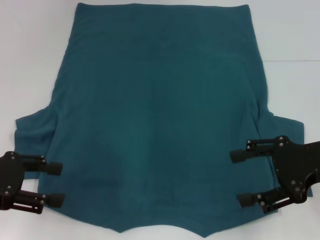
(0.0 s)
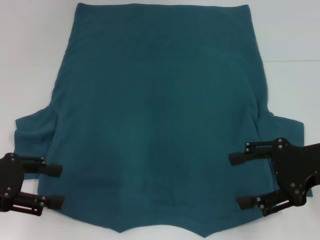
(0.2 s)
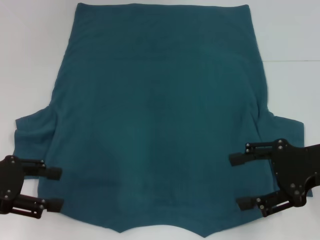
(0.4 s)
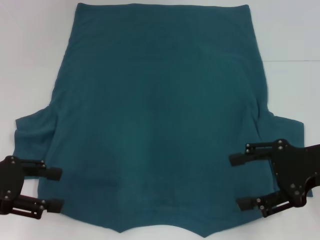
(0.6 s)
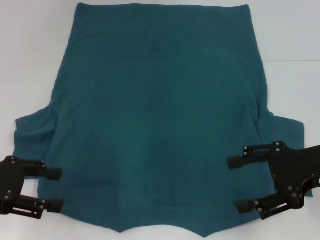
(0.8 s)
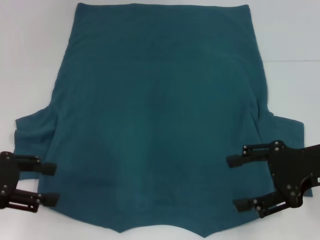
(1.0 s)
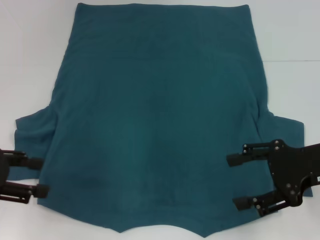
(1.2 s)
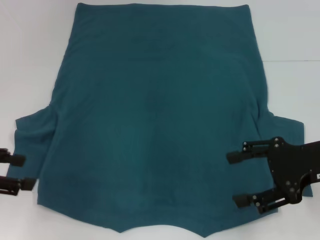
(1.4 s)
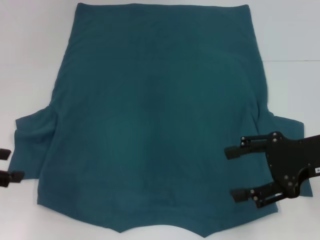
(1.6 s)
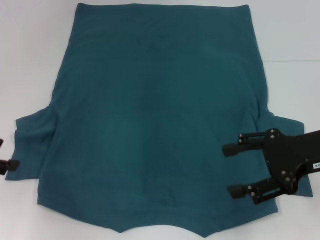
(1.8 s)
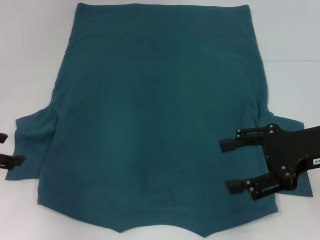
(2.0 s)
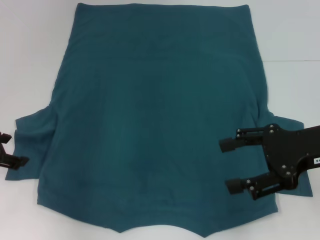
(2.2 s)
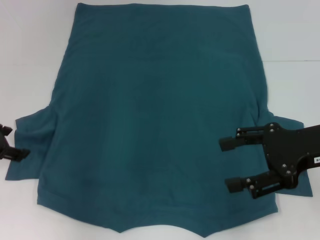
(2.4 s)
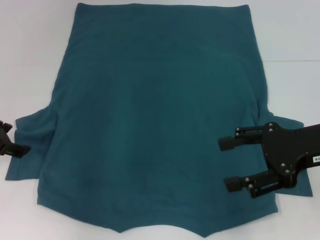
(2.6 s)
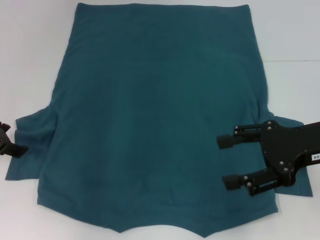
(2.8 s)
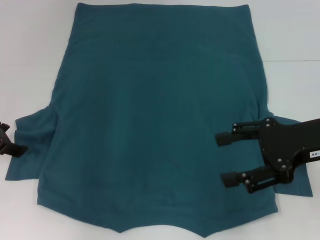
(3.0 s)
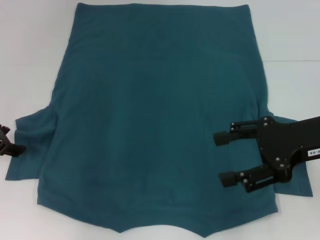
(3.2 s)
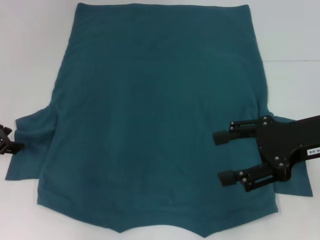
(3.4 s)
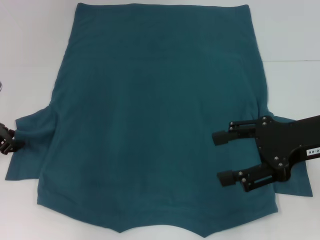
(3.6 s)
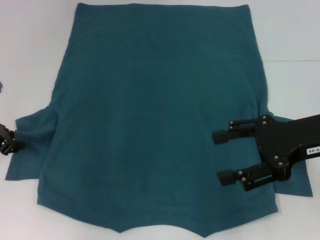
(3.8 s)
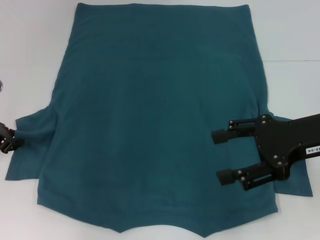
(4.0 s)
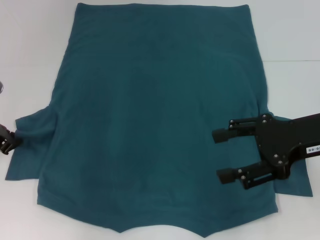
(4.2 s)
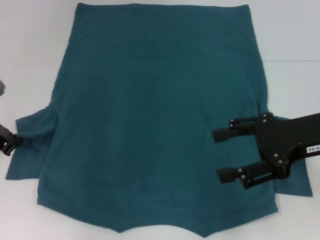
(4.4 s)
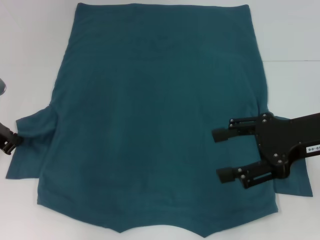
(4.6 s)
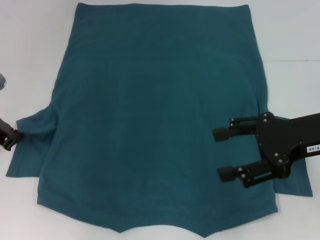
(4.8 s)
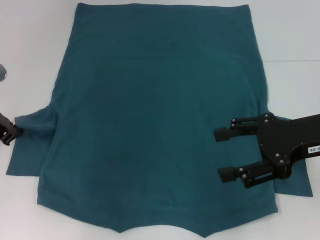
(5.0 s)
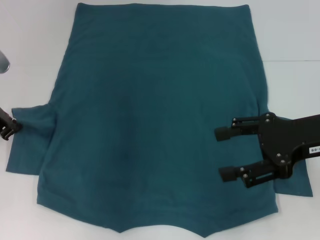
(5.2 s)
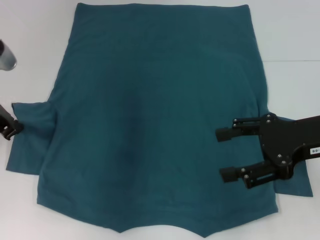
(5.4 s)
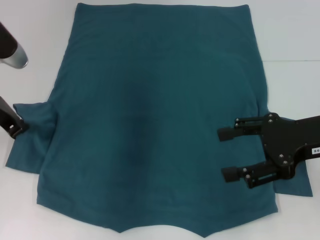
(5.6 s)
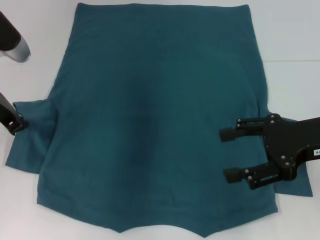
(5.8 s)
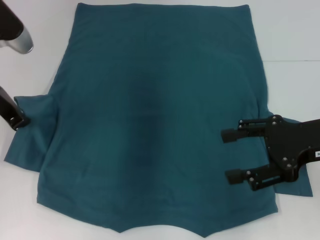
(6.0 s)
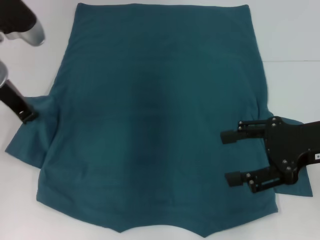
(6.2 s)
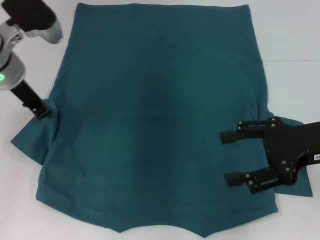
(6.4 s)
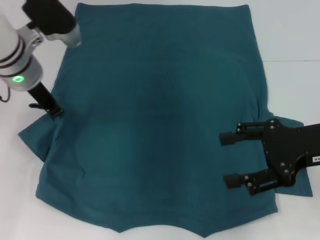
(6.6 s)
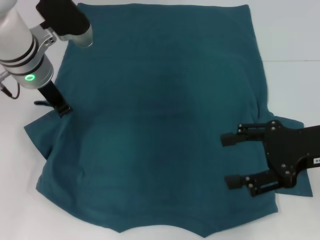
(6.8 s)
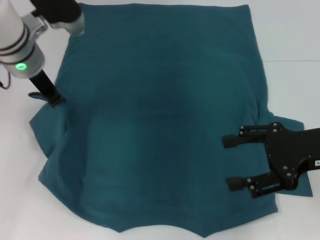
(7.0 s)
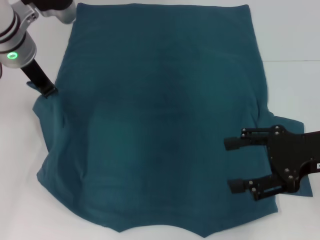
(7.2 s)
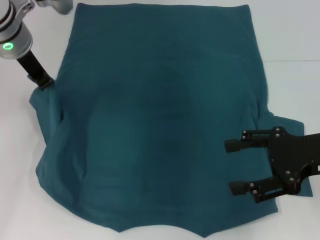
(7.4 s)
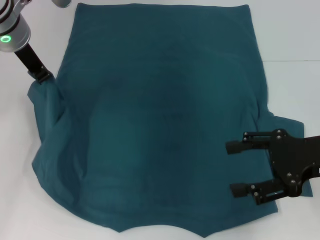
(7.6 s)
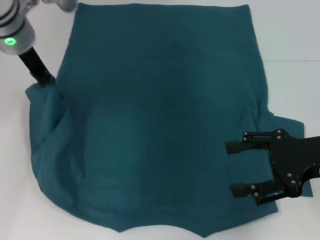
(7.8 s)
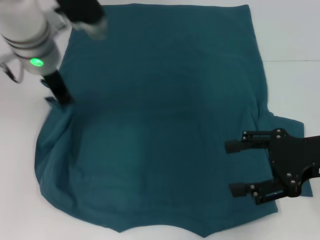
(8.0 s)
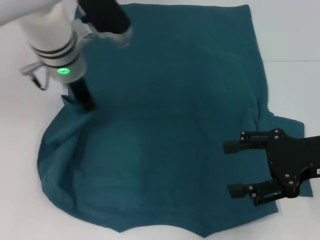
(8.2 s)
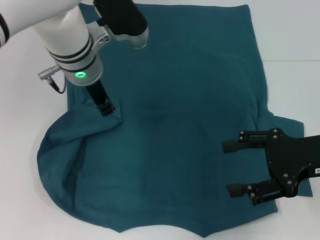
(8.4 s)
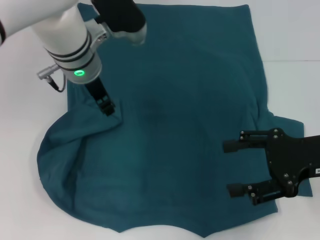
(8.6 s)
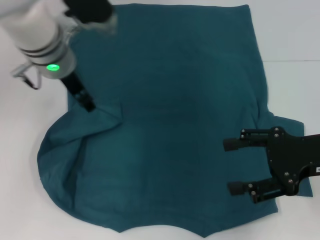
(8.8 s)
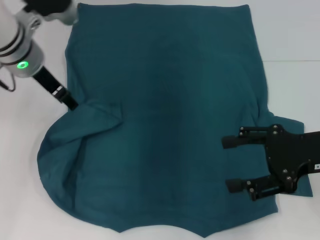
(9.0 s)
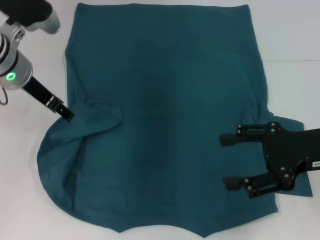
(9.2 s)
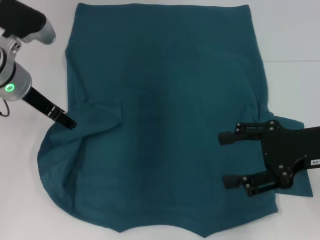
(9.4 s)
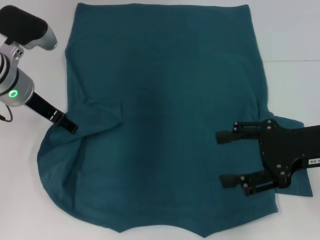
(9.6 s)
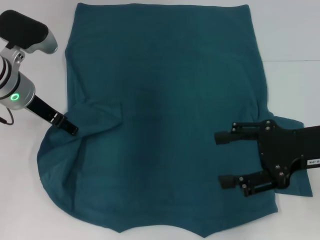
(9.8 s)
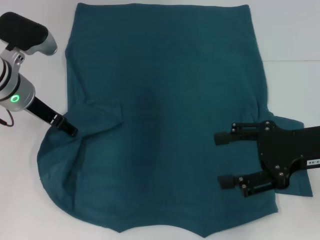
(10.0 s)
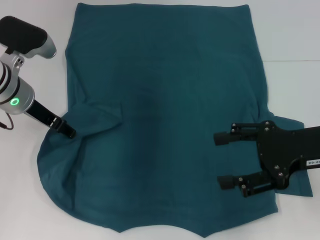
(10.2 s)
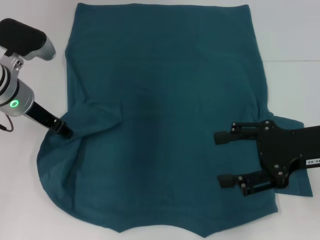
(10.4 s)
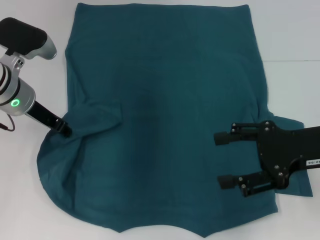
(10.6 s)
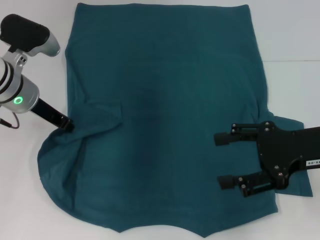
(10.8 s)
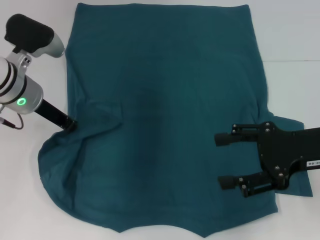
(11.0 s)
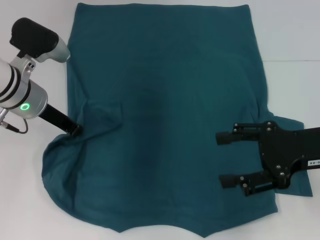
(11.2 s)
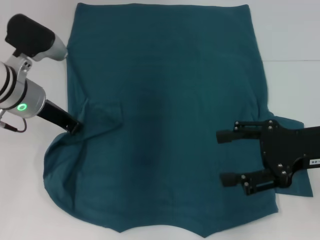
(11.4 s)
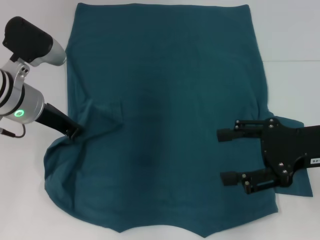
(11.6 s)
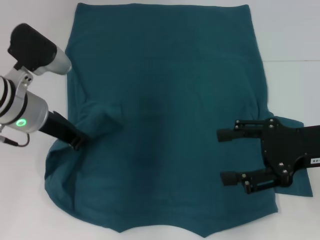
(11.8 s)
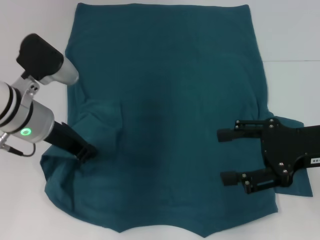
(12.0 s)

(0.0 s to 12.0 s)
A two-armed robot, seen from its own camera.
1.6 s - 3.0 s: The left gripper shifts approximately 10 cm forward.
3.0 s - 4.4 s: The left gripper closes up.
4.4 s - 6.0 s: The left gripper is displaced upward and to the right by some 10 cm.
6.0 s - 7.6 s: The left gripper goes roughly 5 cm to the right.
7.6 s - 9.0 s: The left gripper moves about 10 cm to the right and comes back, and opens up.
9.0 s - 10.4 s: The left gripper heads downward, covering about 5 cm.
10.4 s - 12.0 s: The left gripper moves backward, approximately 5 cm, and closes its fingers.

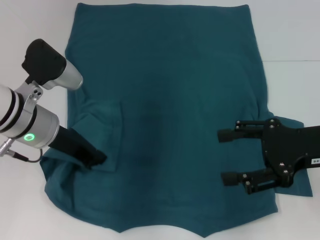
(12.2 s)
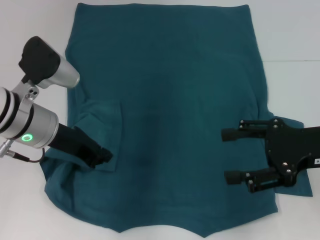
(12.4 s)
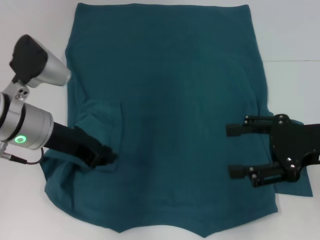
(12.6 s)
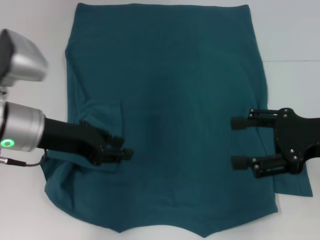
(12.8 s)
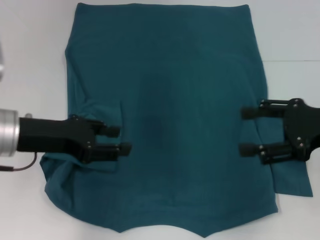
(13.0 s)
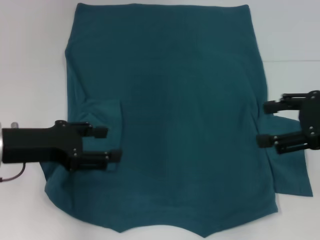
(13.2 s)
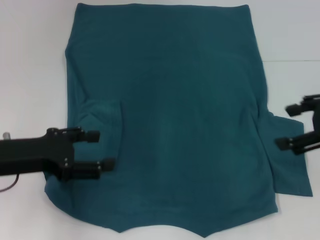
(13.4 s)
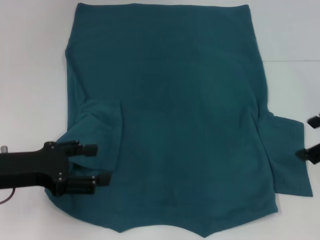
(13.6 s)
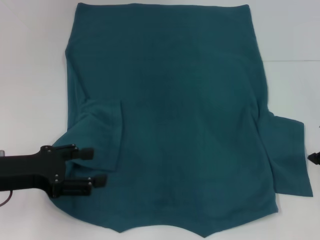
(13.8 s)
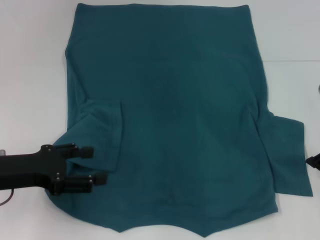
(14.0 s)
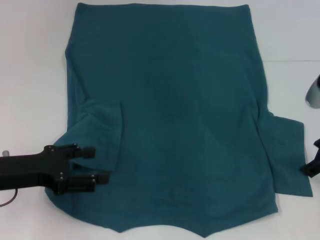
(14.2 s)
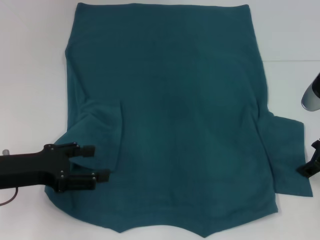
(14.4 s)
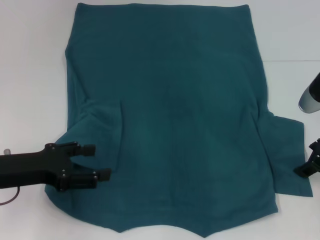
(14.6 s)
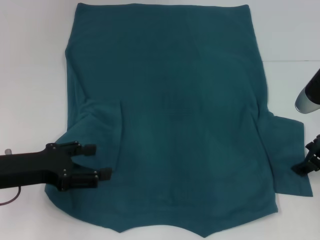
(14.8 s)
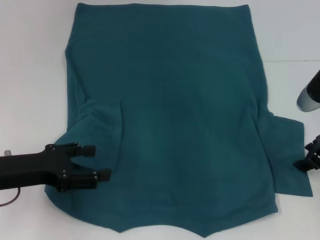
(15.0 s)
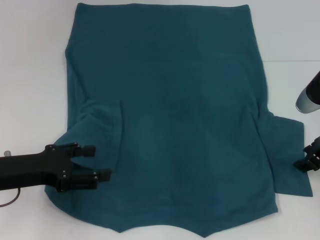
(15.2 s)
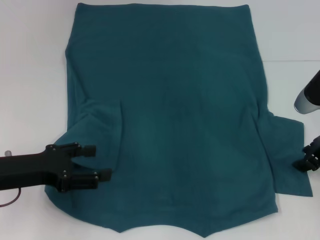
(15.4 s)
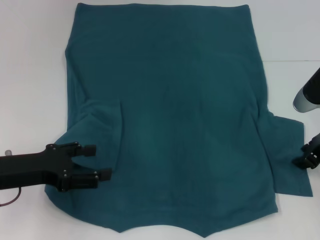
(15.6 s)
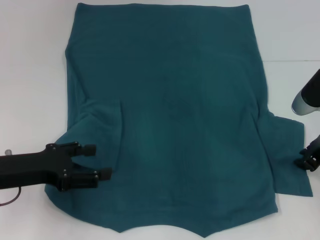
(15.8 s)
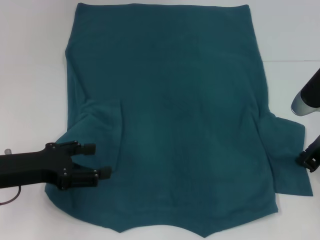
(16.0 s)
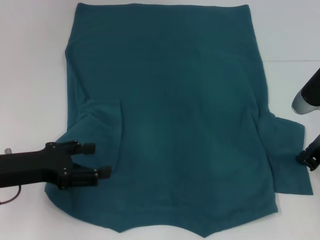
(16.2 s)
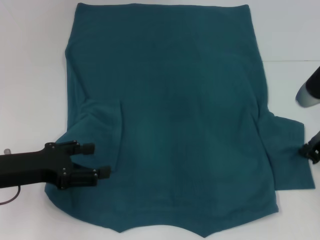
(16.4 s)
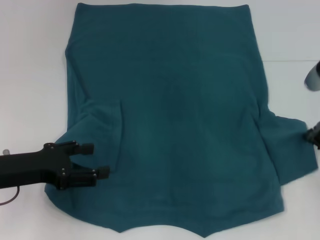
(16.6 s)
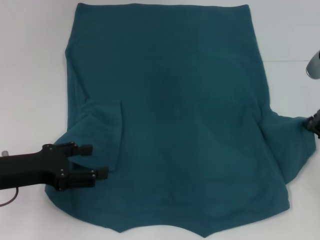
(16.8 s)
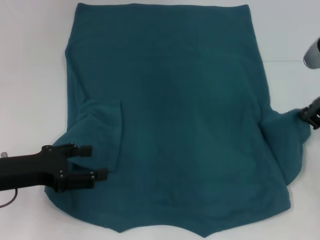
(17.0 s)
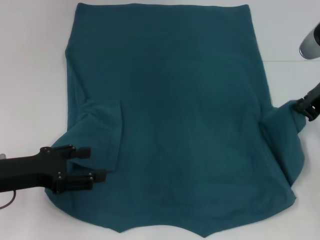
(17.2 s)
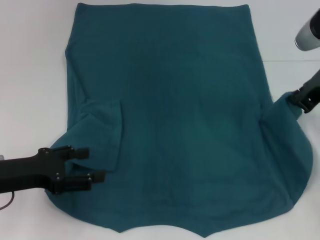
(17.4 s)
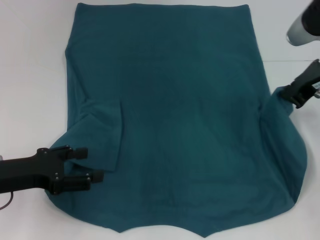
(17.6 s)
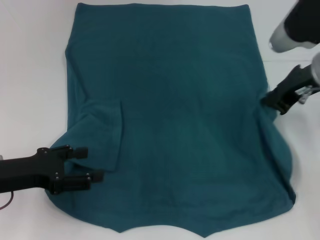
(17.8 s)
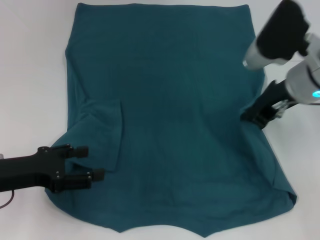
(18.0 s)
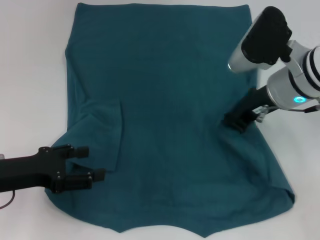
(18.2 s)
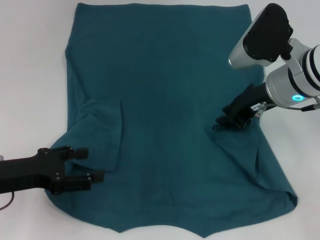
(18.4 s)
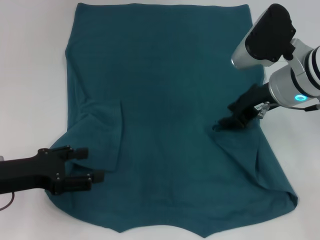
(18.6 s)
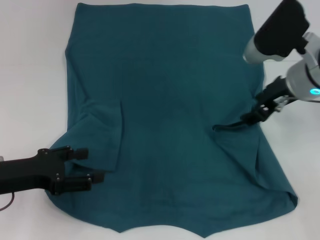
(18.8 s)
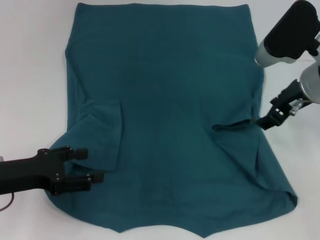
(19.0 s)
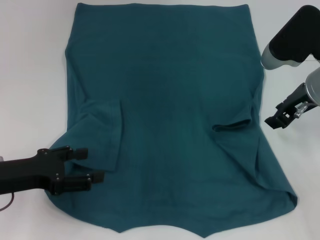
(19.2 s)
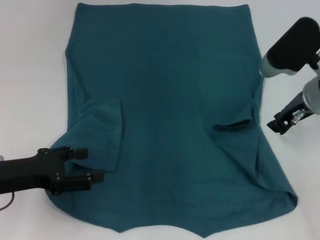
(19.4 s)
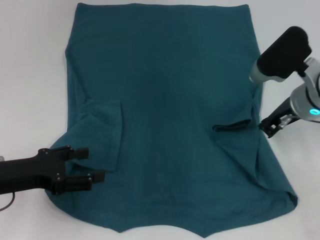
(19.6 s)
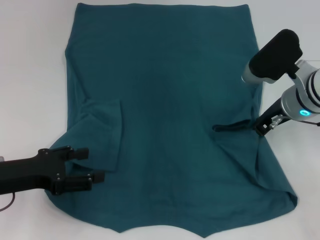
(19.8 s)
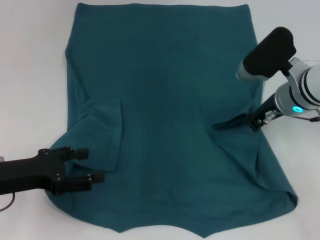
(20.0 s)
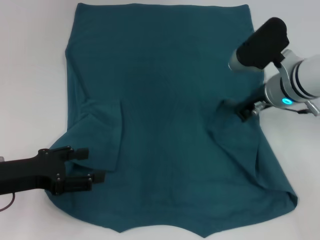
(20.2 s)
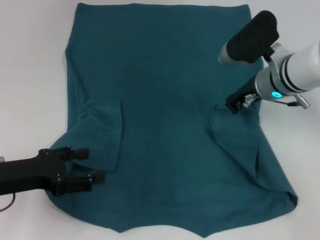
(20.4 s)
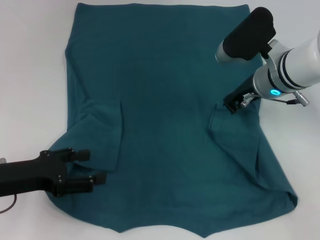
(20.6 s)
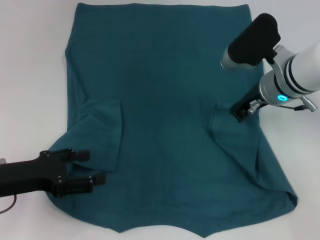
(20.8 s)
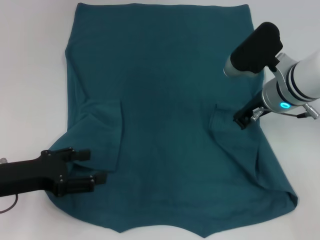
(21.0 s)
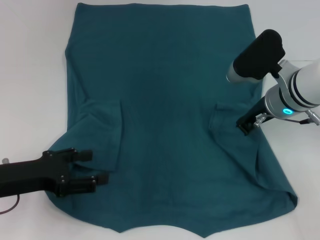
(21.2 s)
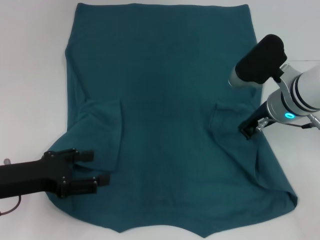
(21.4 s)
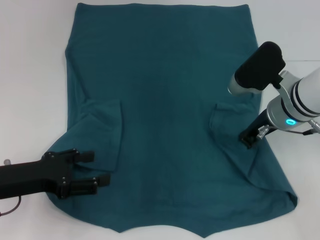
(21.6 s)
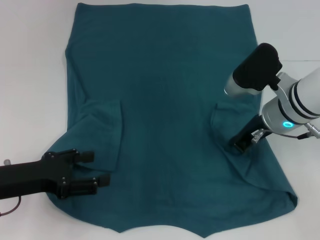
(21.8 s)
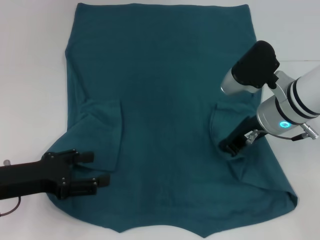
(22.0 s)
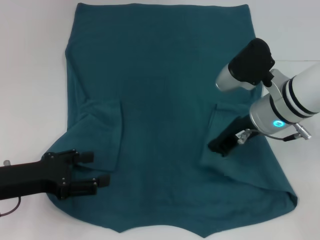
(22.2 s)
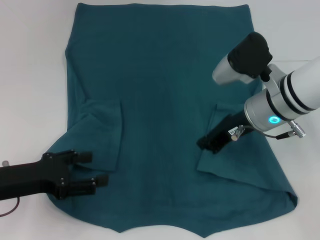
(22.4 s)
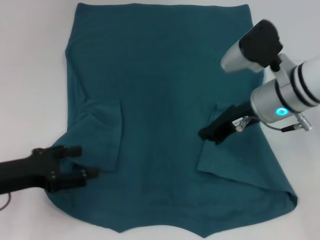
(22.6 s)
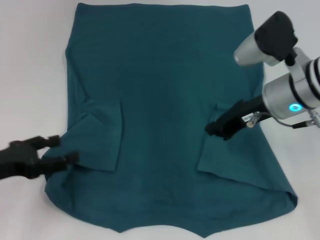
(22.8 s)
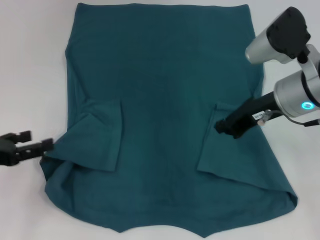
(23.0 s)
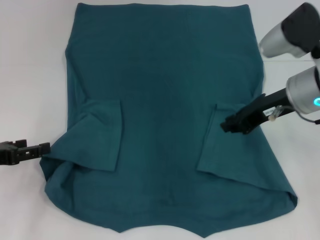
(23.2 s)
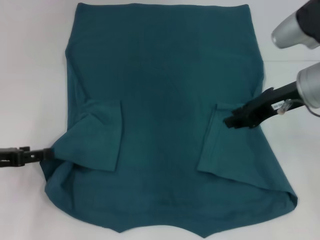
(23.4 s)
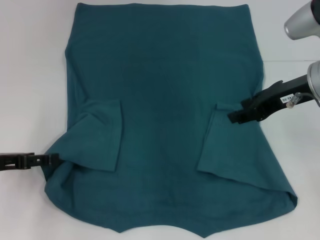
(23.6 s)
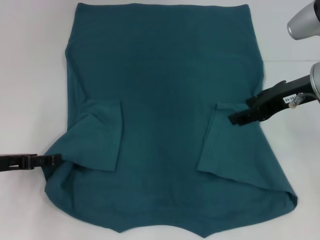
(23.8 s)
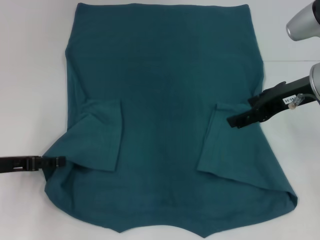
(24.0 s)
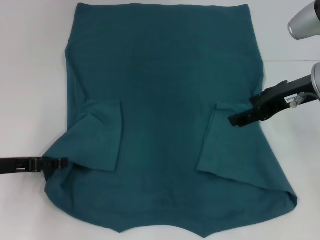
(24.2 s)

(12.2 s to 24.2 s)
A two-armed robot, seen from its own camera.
Step, 12.2 s - 15.0 s: Fold the bottom left sleeve with your left hand.
Step, 15.2 s - 22.6 s: Fold the bottom right sleeve to the right.
12.2 s - 13.8 s: The left gripper moves backward and to the left, roughly 10 cm, and opens its fingers. The right gripper moves some 5 cm.
13.8 s - 15.2 s: The right gripper travels downward by about 10 cm.
15.2 s - 16.6 s: The right gripper closes.
16.6 s - 18.2 s: The right gripper is displaced to the left by about 10 cm.
18.2 s - 19.8 s: The right gripper shifts by roughly 5 cm, and opens, then closes again.
19.8 s - 21.2 s: The grippers move only a little.
22.6 s - 24.2 s: The left gripper changes place by about 5 cm; the right gripper is displaced to the right by approximately 5 cm, and opens up.
